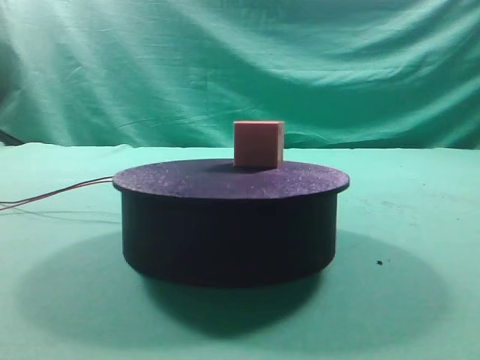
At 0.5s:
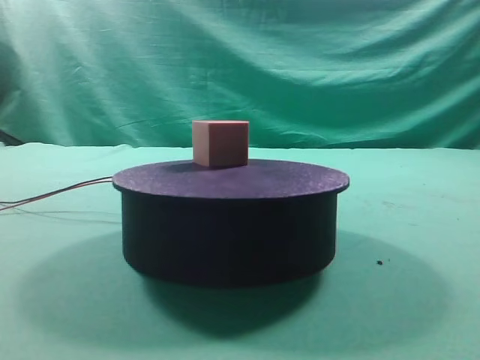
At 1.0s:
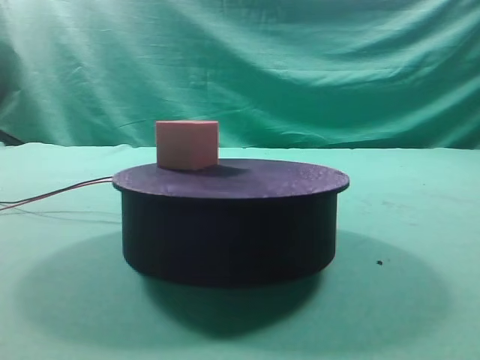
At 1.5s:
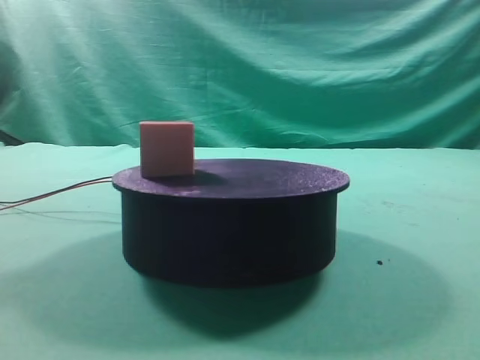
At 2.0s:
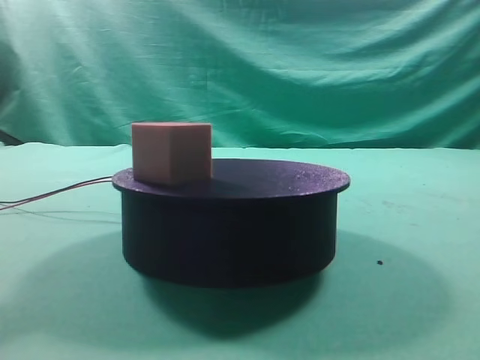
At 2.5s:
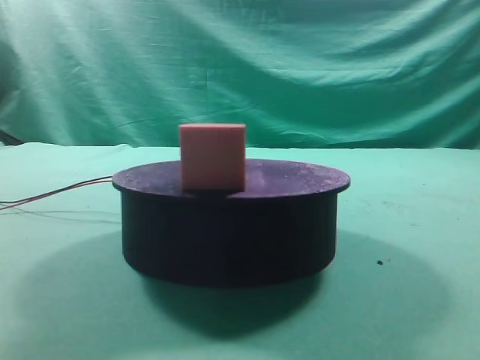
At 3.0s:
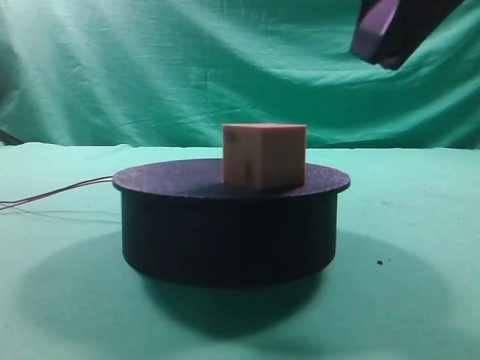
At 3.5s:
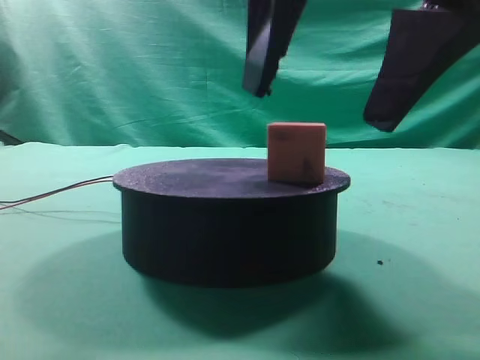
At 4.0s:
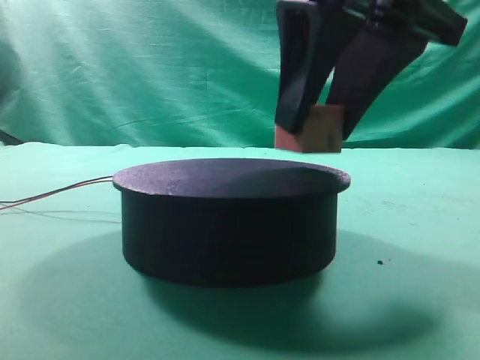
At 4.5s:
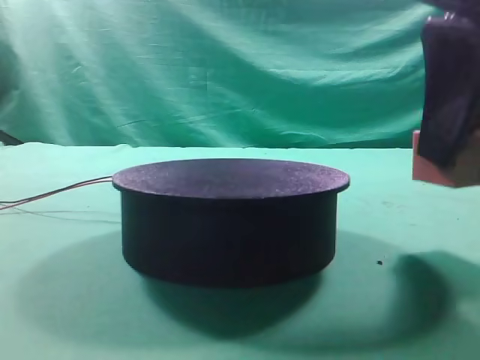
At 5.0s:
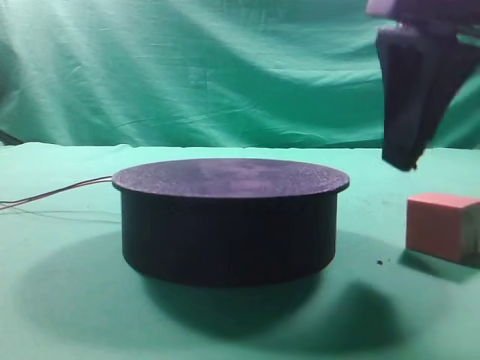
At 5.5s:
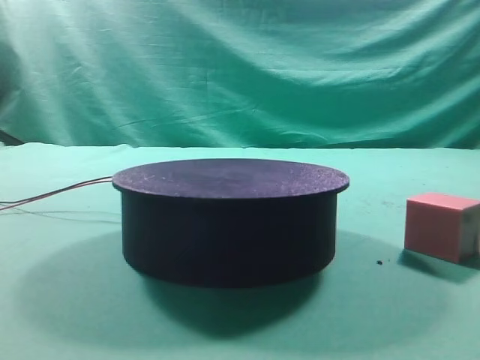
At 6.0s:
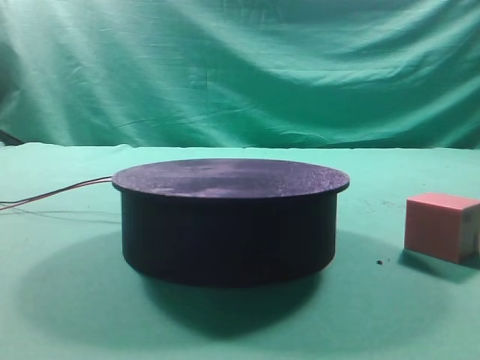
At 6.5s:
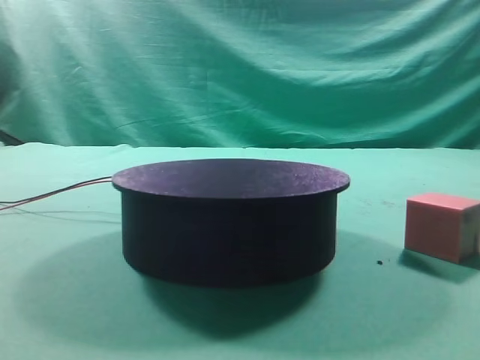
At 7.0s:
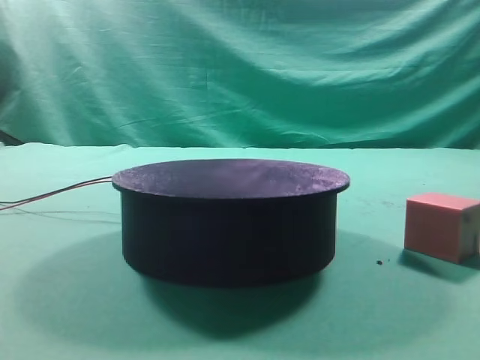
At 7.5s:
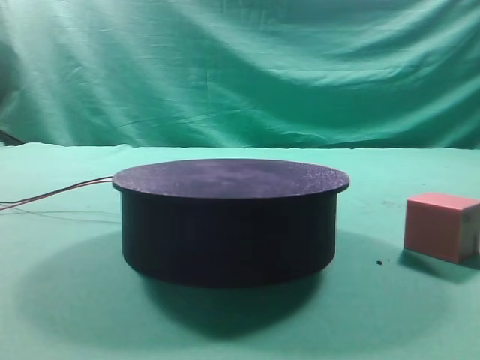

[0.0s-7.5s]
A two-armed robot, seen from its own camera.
Task of the whole recording: grasp the rotating cube-shaped block on the turntable and place it on the table.
Step, 0.0s to 4.0s: Grasp the rotating cube-shaped block on the turntable.
Step, 4.5s to 5.0s: Place the cube on the desk.
